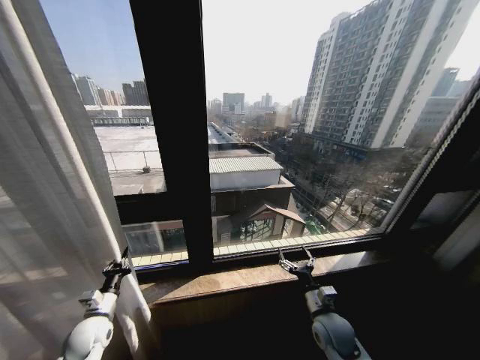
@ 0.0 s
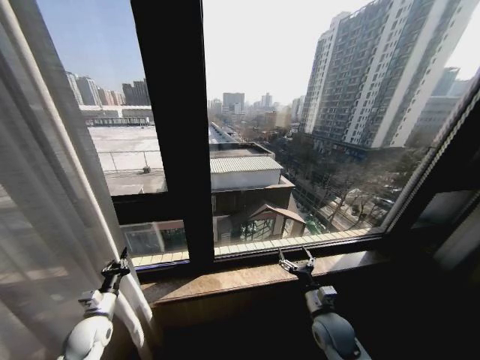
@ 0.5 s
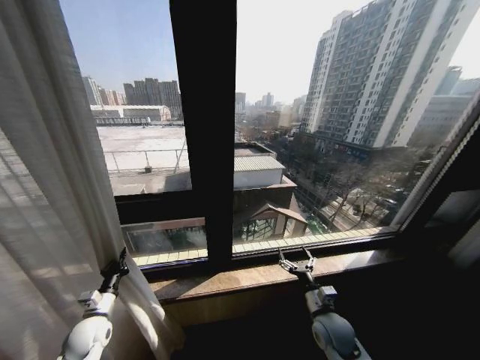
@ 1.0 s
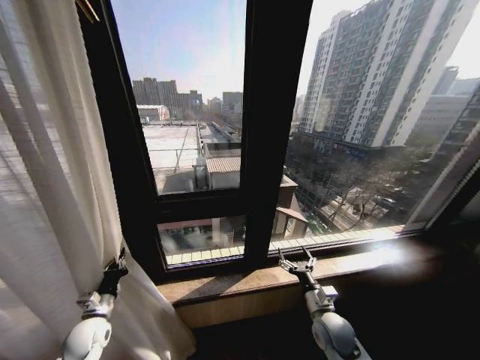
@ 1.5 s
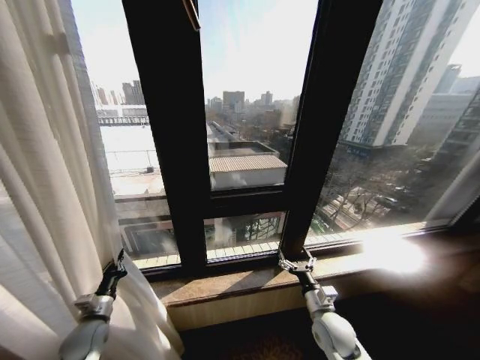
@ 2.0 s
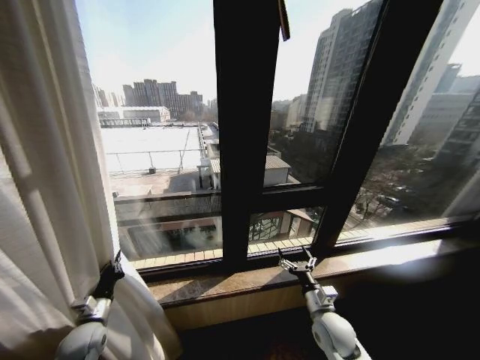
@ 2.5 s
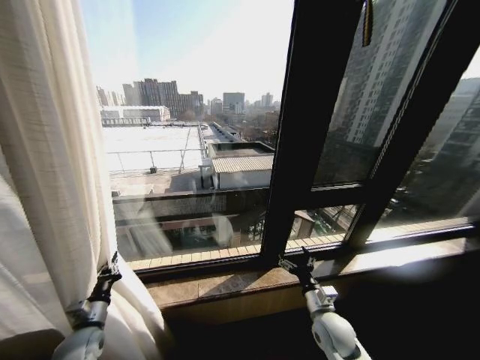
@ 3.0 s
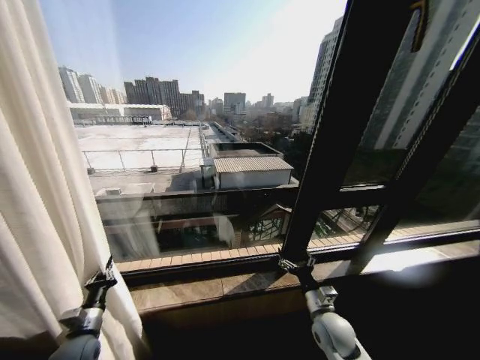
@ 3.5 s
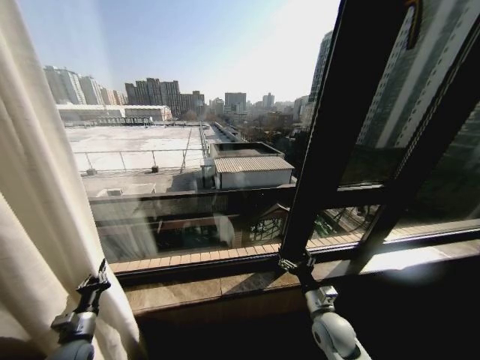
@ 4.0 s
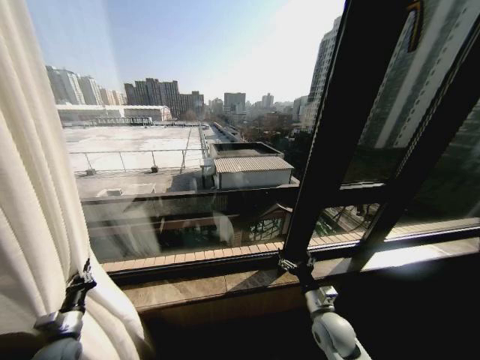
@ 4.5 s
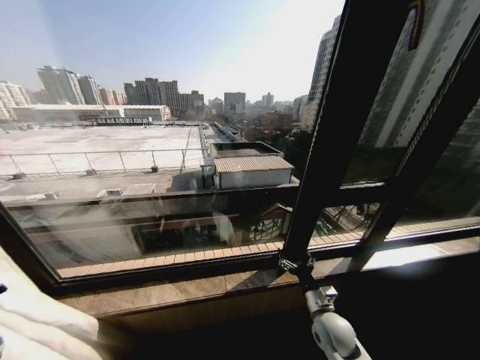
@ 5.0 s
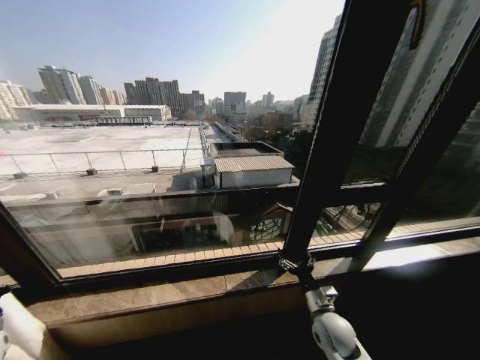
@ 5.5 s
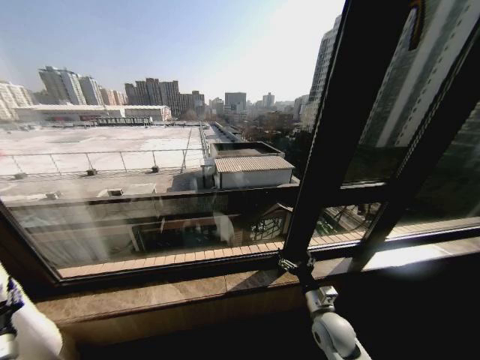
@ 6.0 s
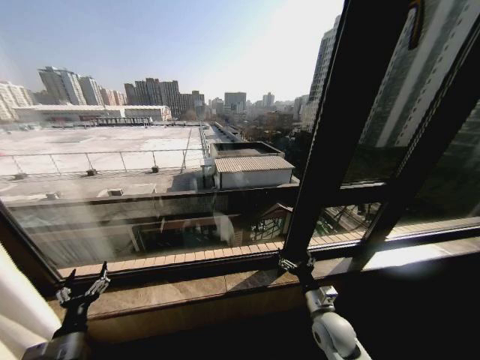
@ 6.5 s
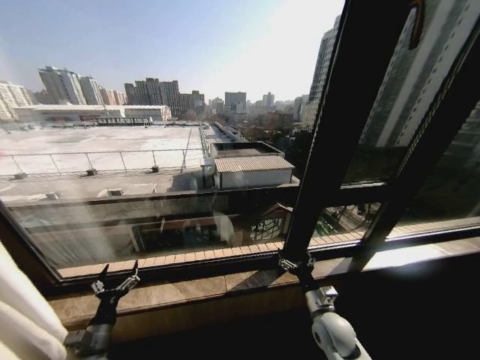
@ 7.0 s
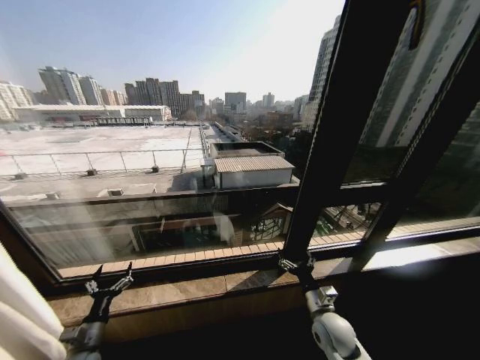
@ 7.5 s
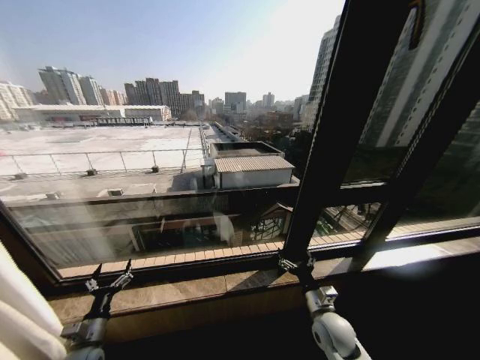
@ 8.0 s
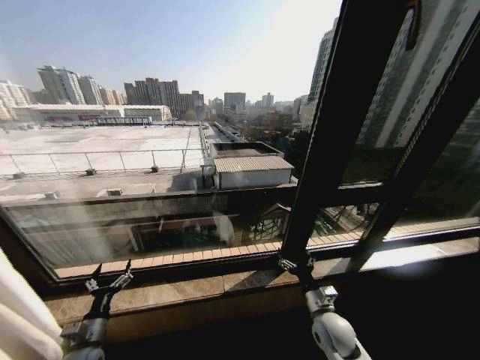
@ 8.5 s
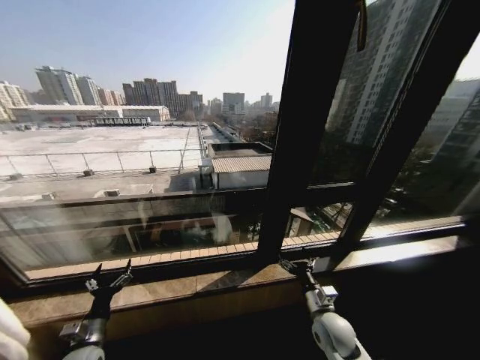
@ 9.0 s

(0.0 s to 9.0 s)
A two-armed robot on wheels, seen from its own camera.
Task of the whole recording: Open the curtains by pulling them apart, changing their state from closed to fully open.
2.0 s - 4.5 s: The left gripper is displaced to the left by approximately 5 cm.
4.5 s - 7.0 s: The left gripper travels to the left and back again, approximately 20 cm each way, and opens up.

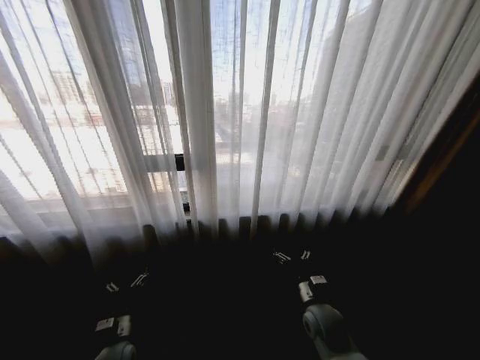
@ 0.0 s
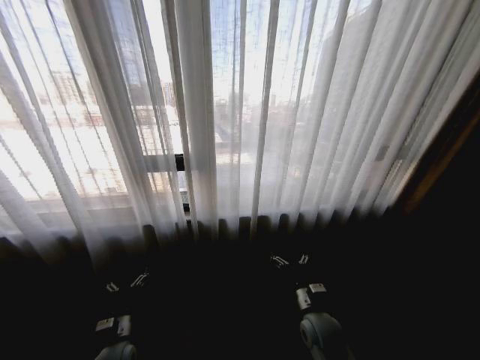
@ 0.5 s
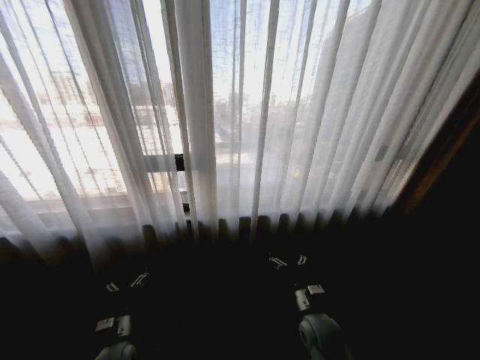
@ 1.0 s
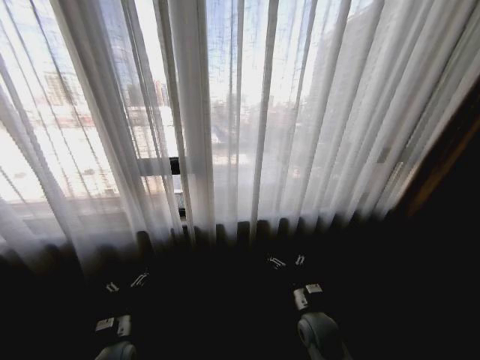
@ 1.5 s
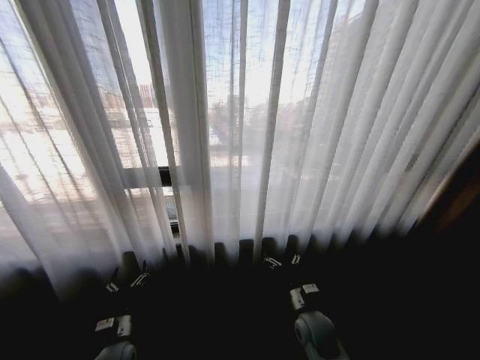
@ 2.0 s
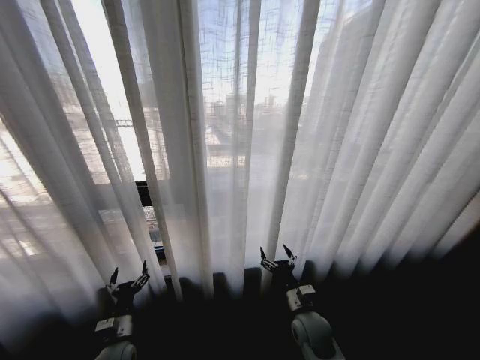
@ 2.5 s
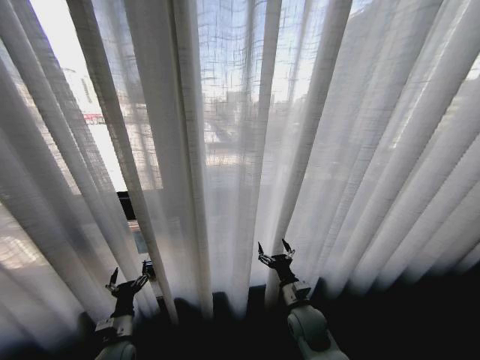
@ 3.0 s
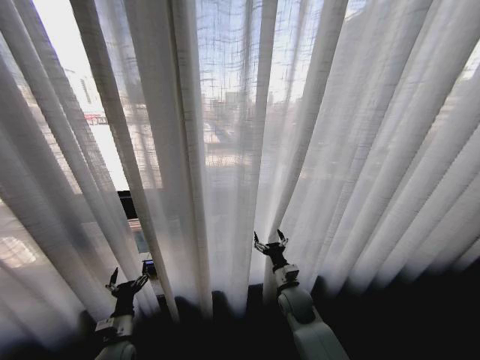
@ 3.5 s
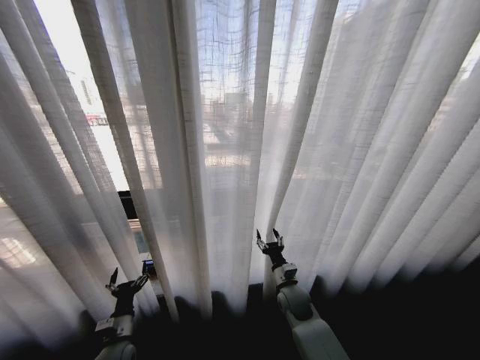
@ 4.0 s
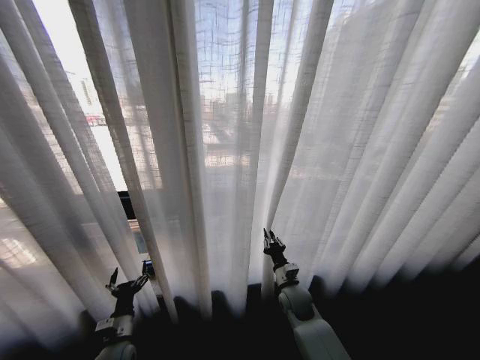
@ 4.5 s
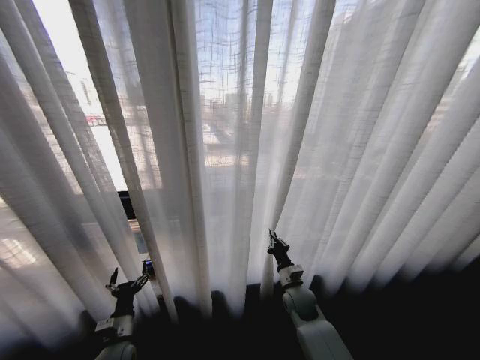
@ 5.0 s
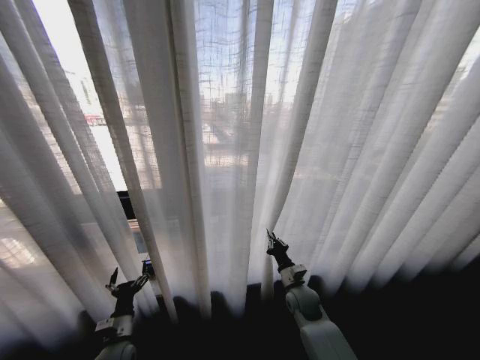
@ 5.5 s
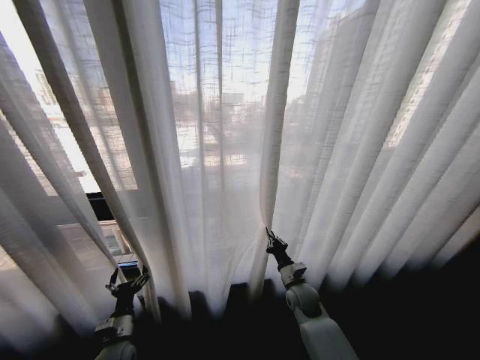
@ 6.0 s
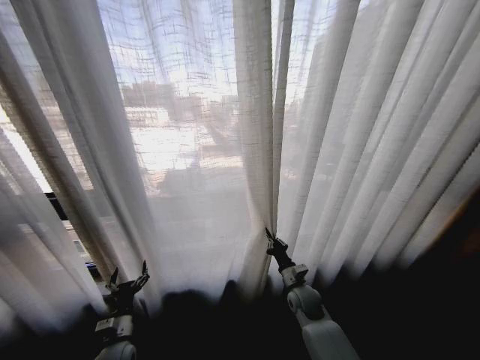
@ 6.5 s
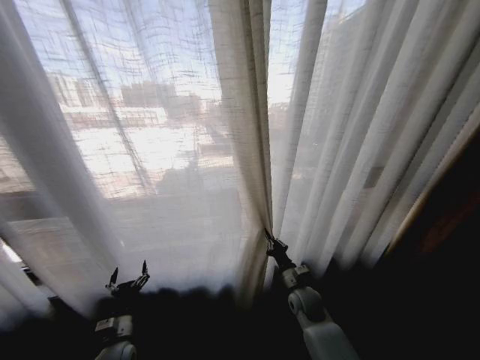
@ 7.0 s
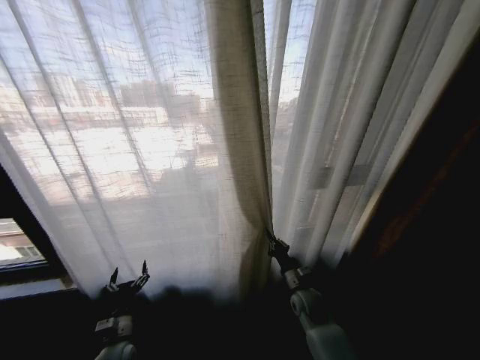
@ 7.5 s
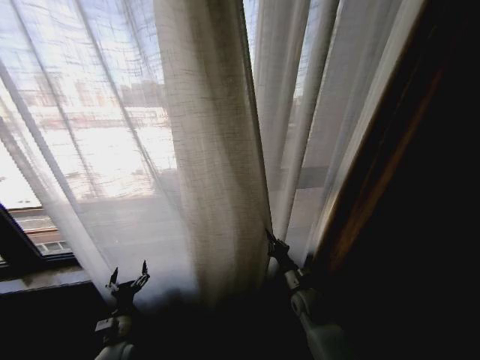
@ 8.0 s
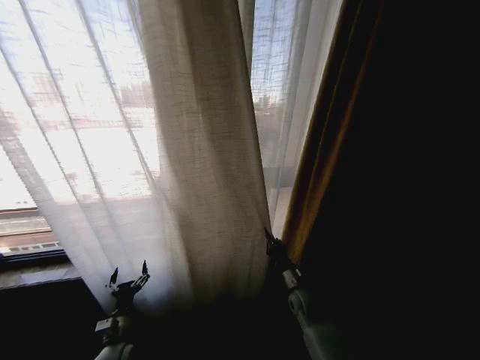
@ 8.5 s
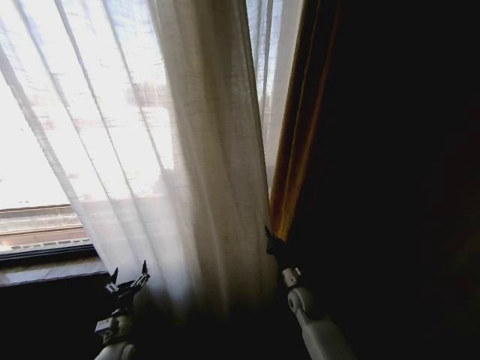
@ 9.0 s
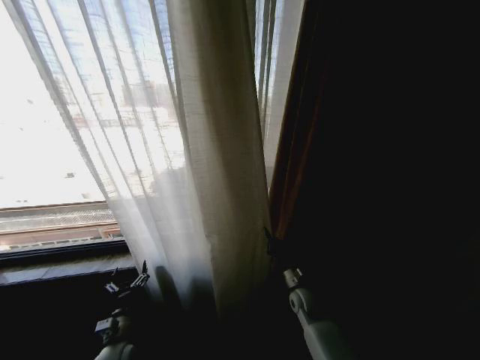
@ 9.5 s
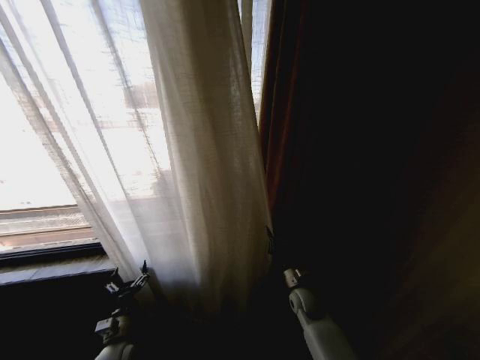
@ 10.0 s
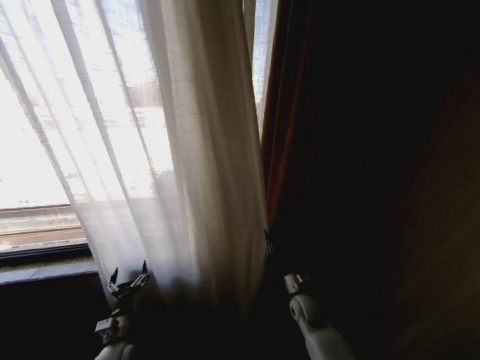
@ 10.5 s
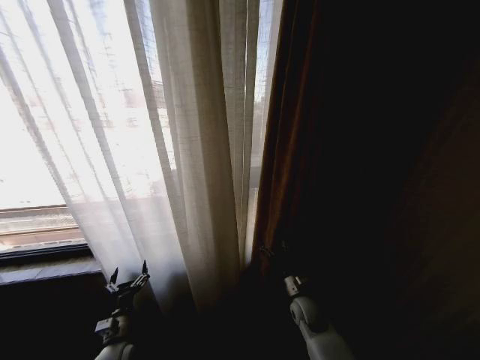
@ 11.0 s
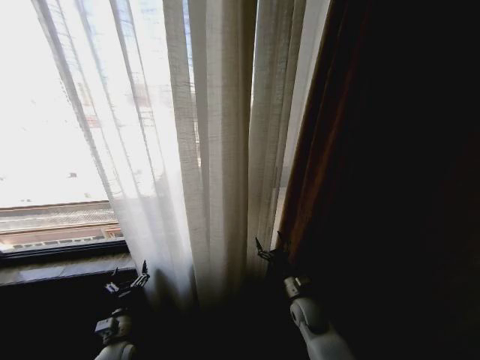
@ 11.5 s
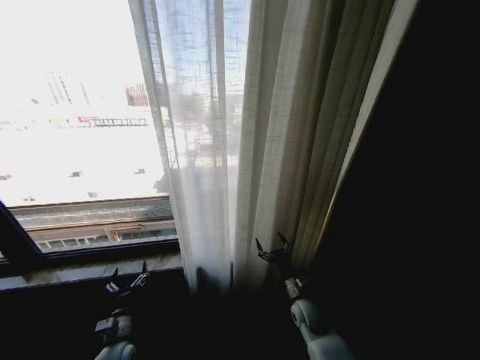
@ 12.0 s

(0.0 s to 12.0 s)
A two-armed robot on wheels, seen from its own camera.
Task of the whole recording: Open the curtains by pulling them apart, changing their state from closed to fully open.
2.0 s - 4.0 s: The right gripper heads forward, covering some 10 cm.
4.0 s - 6.0 s: The right gripper closes up.
10.0 s - 12.0 s: The right gripper opens up.

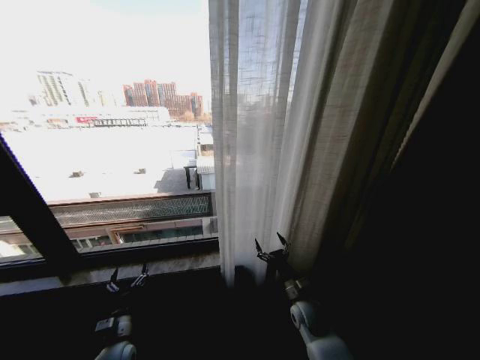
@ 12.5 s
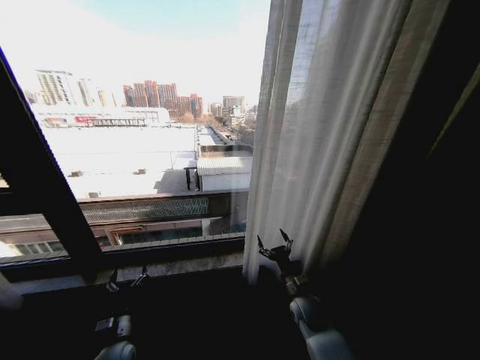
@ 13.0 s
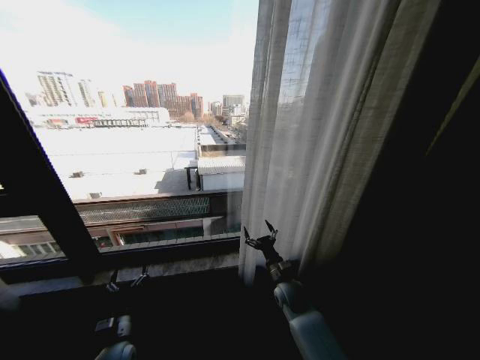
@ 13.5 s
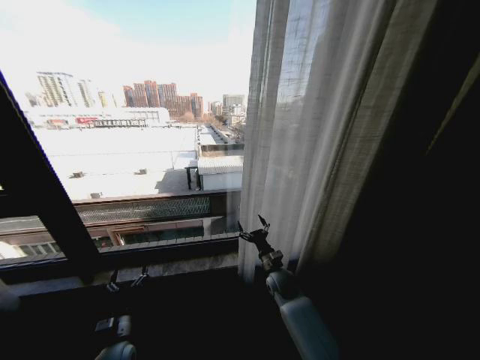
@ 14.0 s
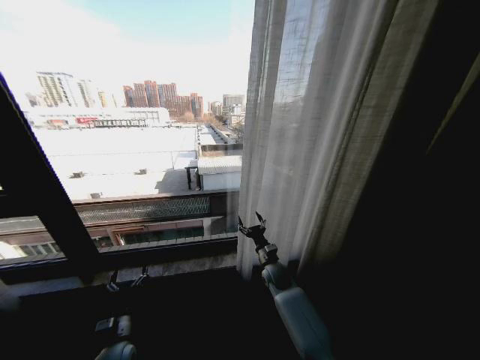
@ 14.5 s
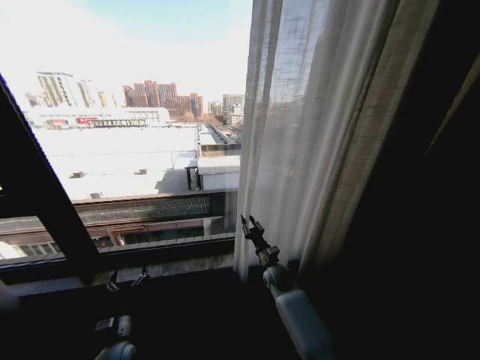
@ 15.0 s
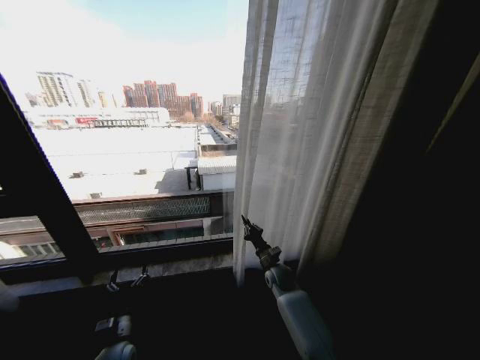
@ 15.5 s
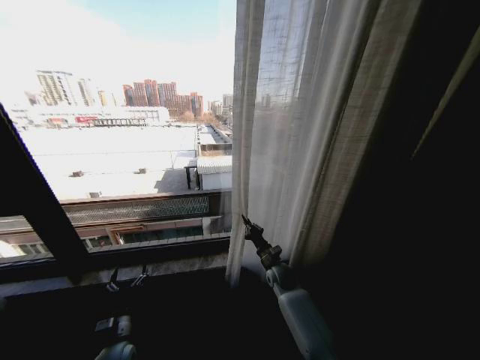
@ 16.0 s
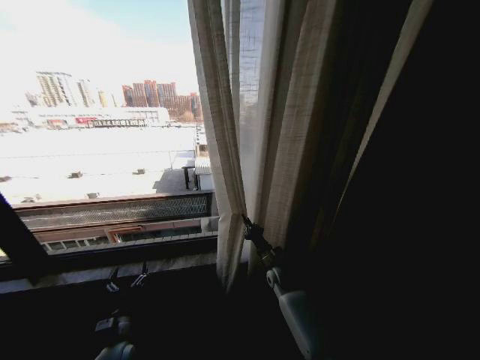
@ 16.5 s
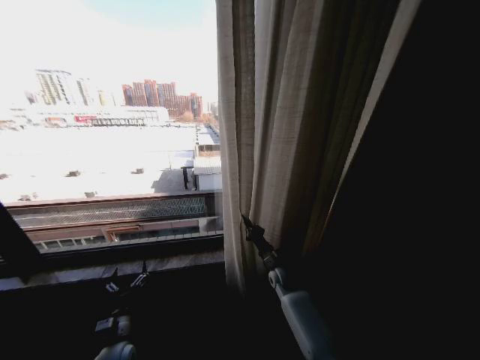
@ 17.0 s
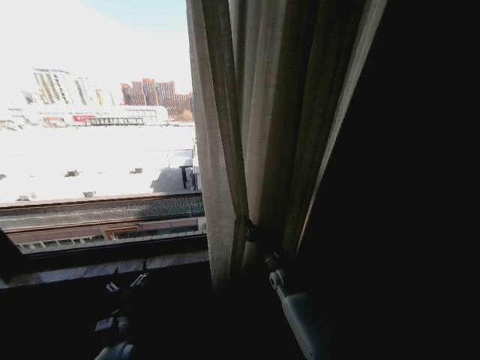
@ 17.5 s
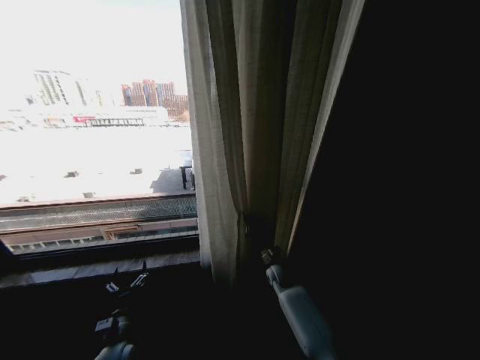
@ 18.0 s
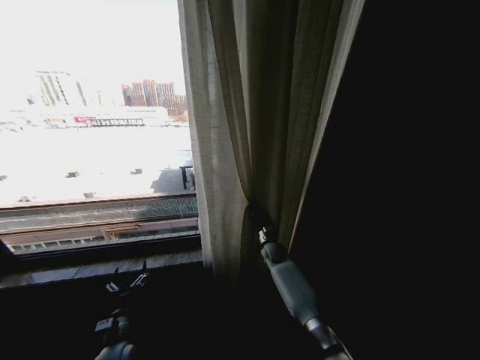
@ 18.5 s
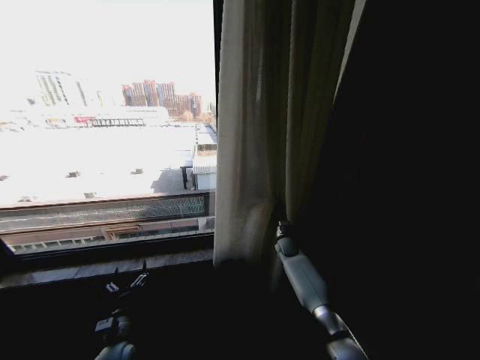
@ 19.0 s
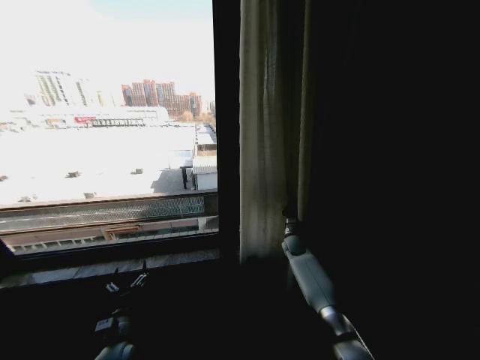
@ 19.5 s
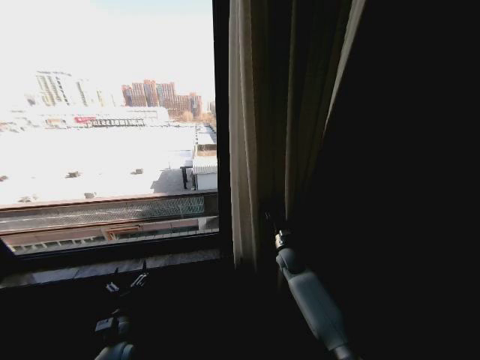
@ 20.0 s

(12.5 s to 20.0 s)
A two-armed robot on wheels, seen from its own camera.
Task of the whole recording: Open the curtains by pulling them apart, changing their state from closed to fully open.
12.5 s - 14.5 s: The right gripper shifts approximately 15 cm forward and to the left.
14.5 s - 16.5 s: The right gripper closes up.
18.0 s - 20.0 s: The right gripper moves roughly 10 cm forward and comes back, and opens its fingers.
